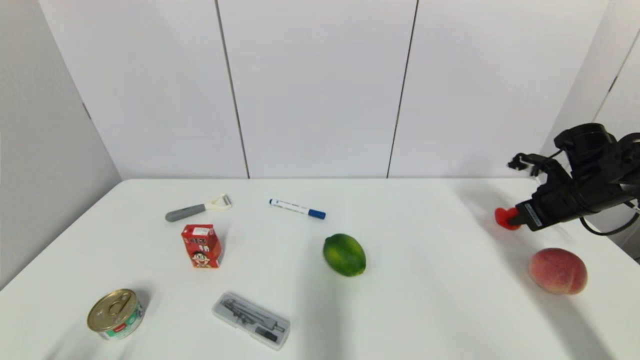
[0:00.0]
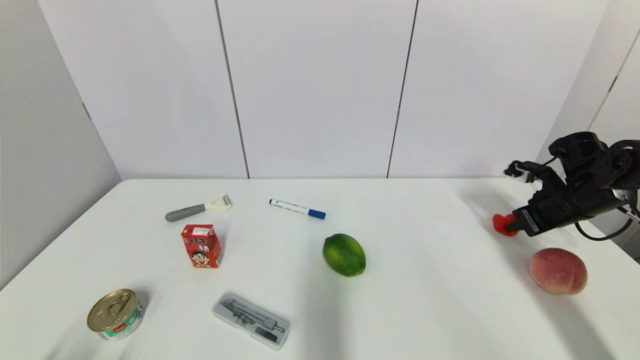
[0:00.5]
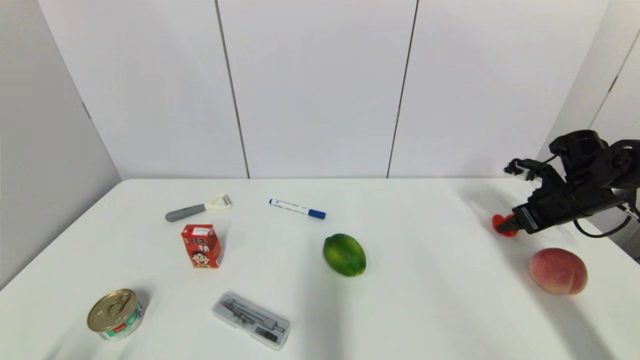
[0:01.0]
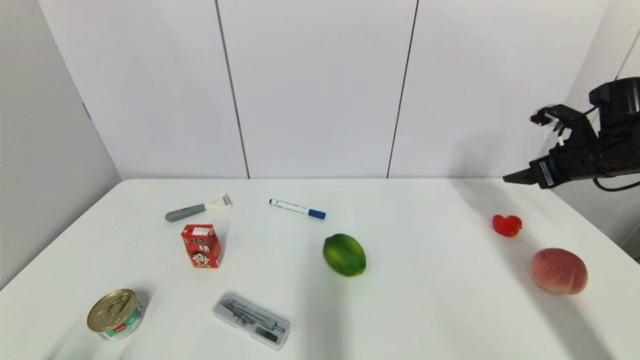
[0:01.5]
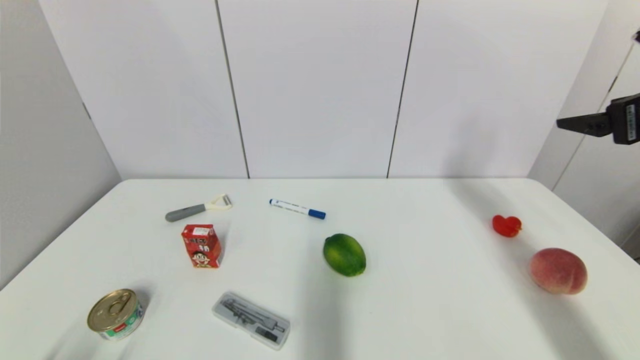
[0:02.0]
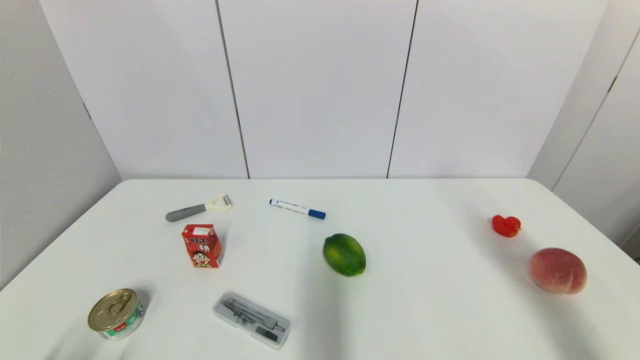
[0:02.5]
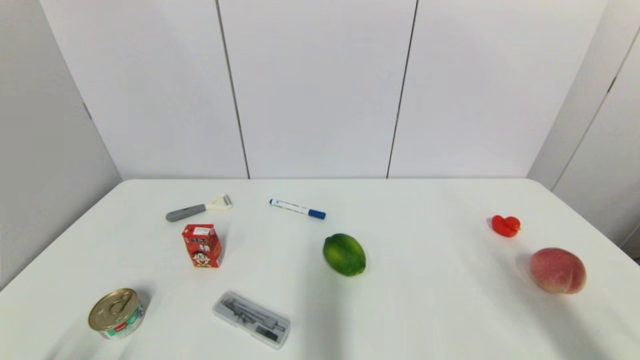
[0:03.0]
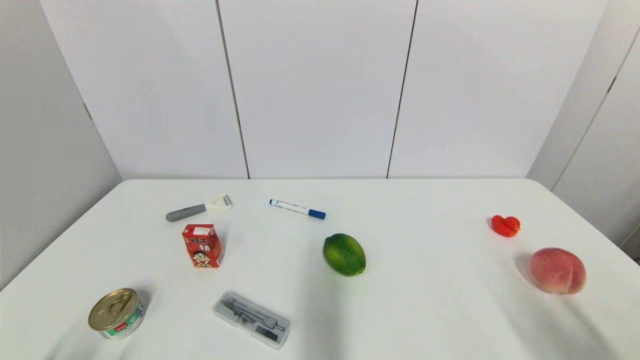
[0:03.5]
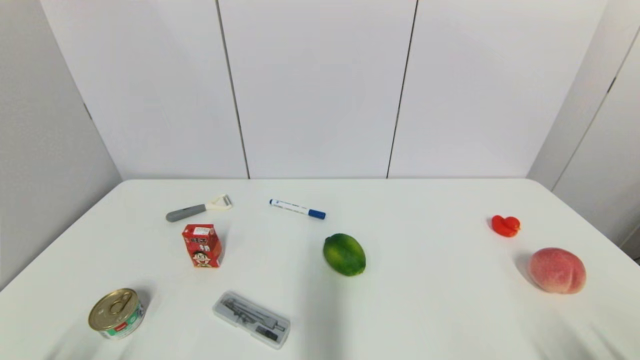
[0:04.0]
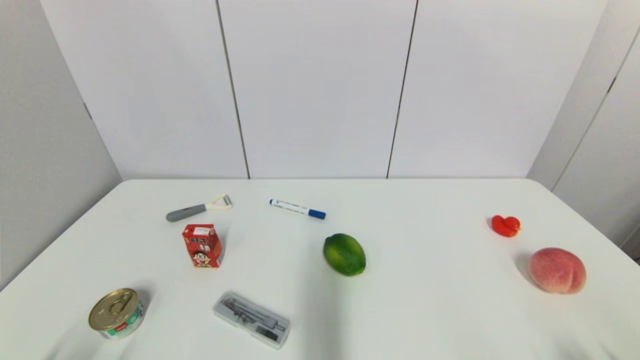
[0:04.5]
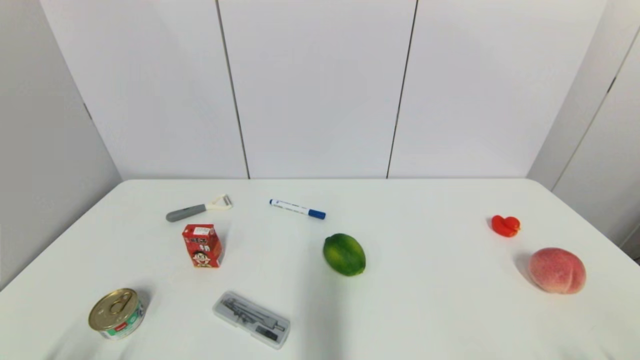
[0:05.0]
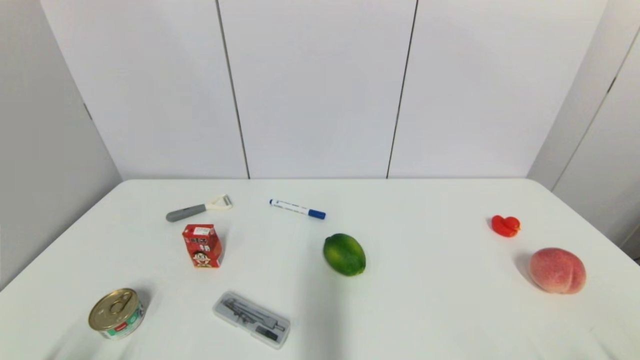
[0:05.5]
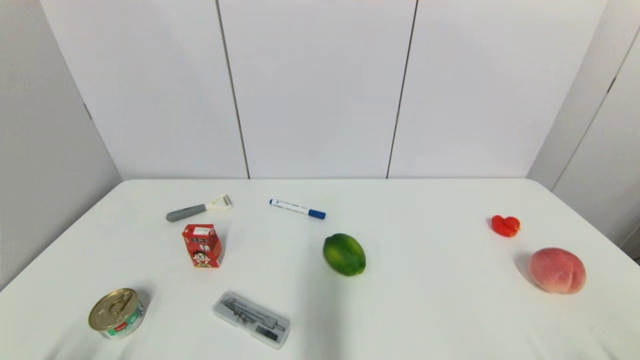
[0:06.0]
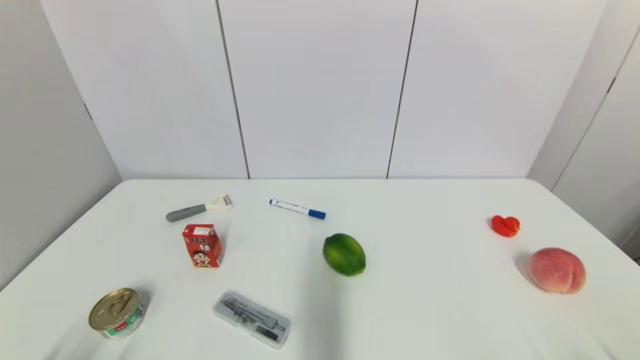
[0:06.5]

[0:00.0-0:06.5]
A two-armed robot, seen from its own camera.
0:00.0 to 0:02.0: The right gripper is displaced upward and backward by approximately 20 cm, and opens.
0:02.0 to 0:04.5: The right gripper shifts about 35 cm backward and downward.

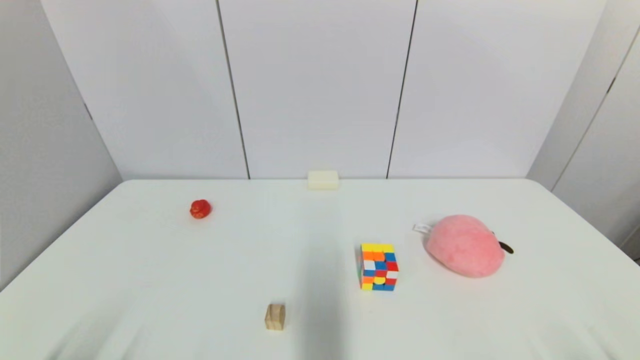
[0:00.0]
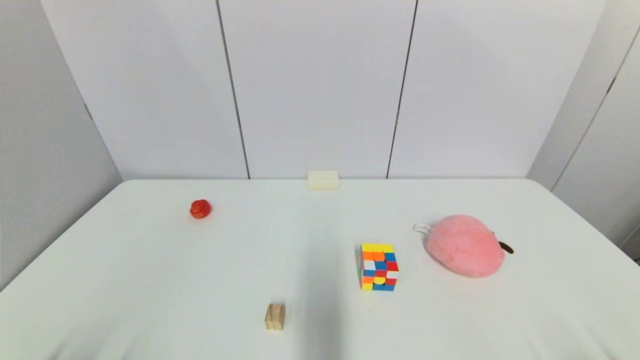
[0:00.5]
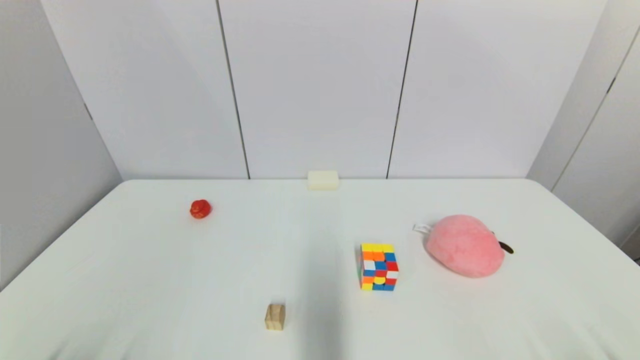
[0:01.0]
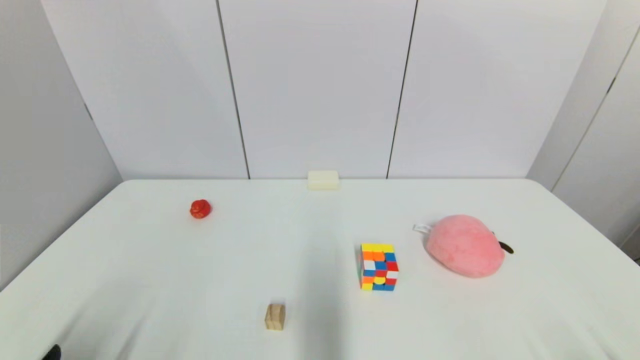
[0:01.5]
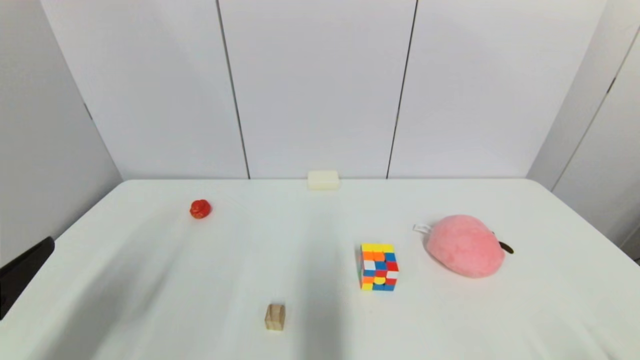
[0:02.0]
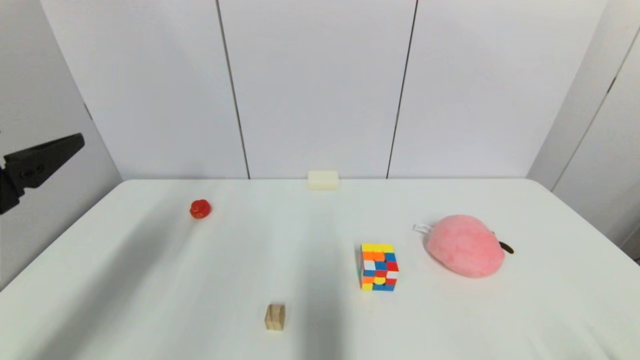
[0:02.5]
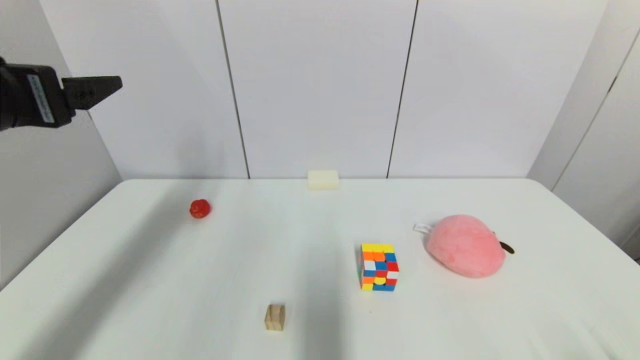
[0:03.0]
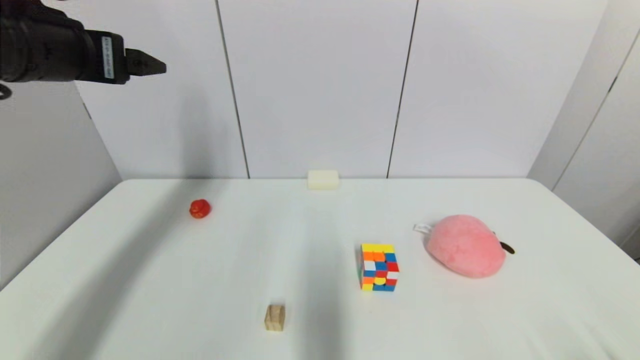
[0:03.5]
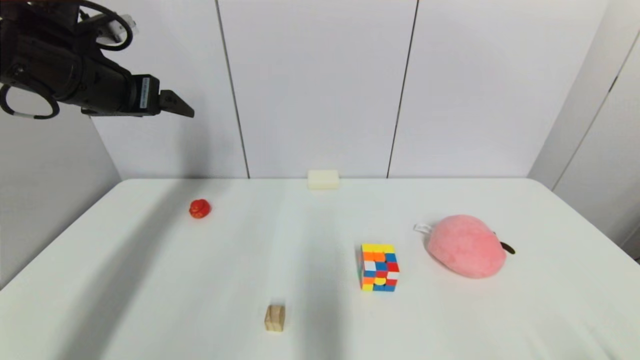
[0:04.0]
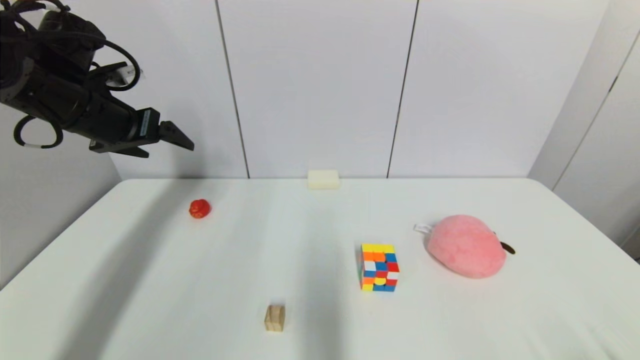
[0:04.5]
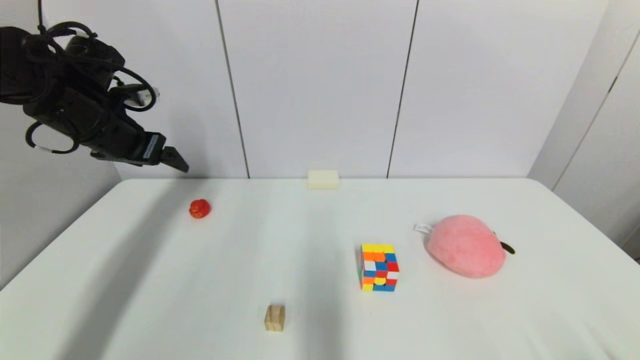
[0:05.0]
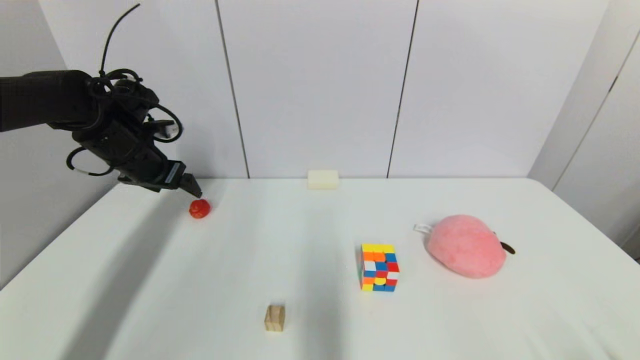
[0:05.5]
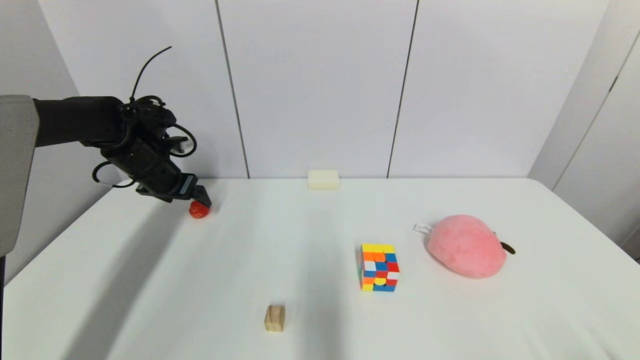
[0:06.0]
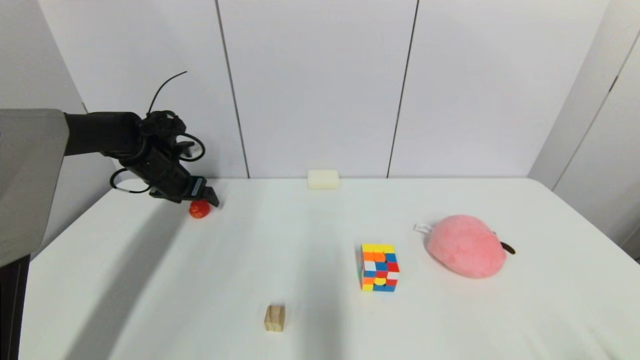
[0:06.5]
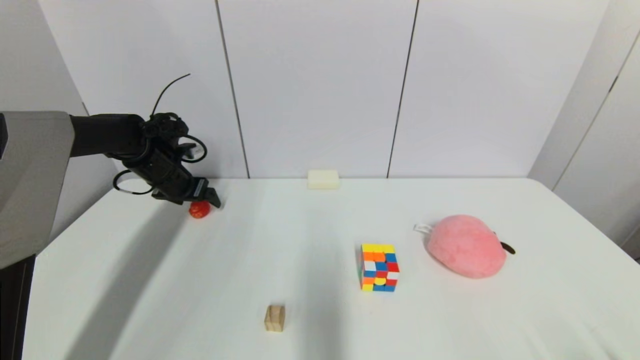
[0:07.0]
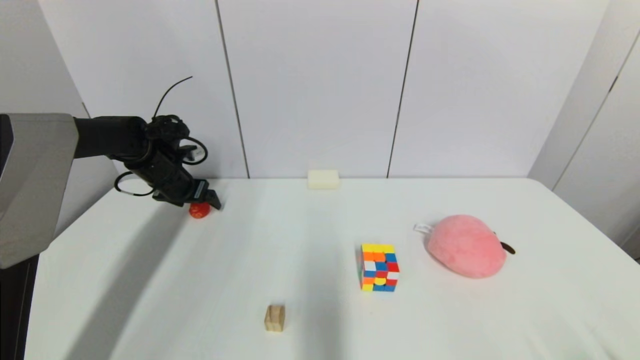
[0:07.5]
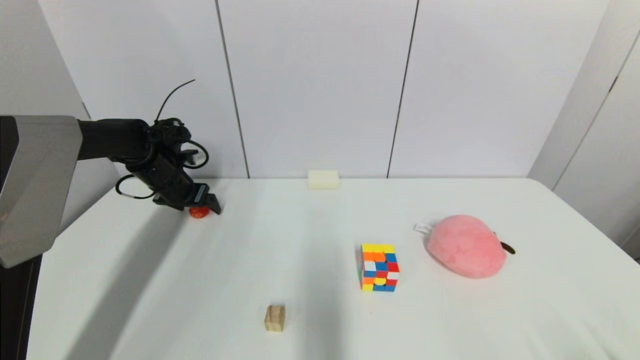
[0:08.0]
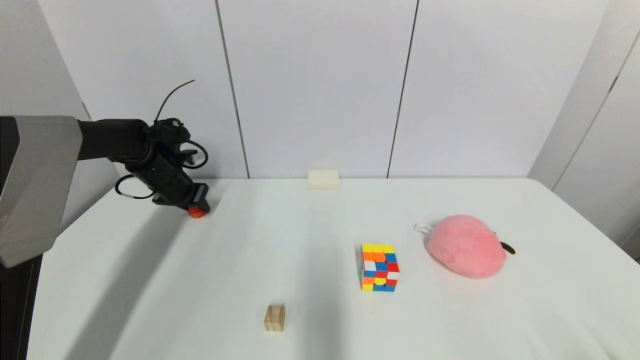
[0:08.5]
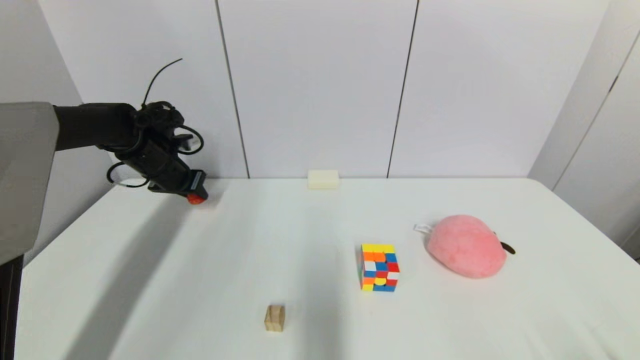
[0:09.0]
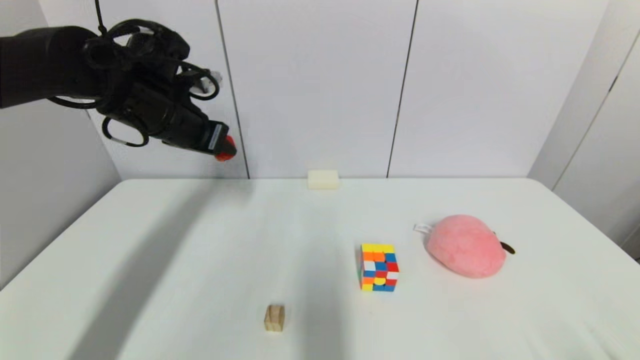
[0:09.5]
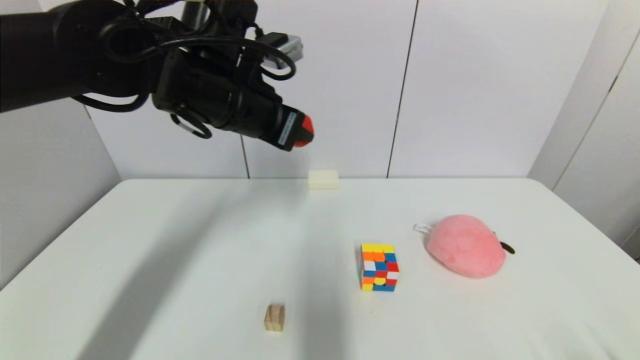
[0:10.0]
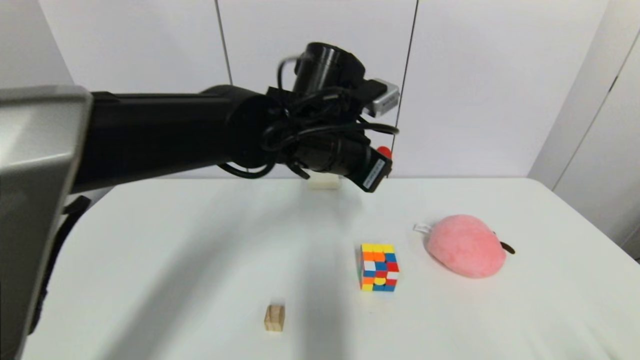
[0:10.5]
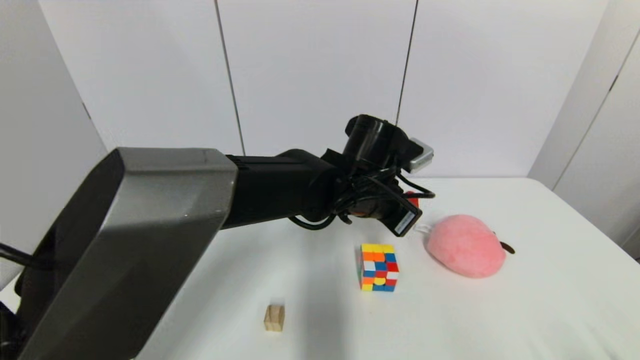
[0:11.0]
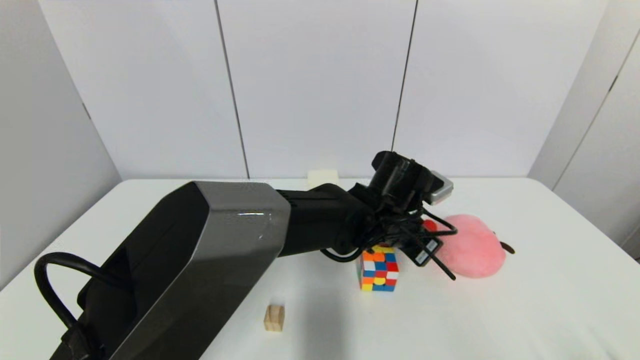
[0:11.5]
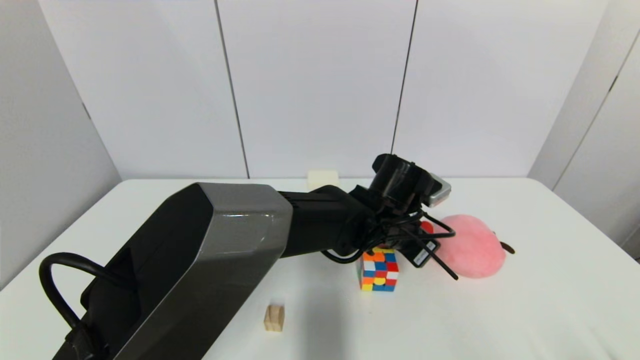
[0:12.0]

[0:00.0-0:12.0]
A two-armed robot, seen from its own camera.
Step, 0:01.5 to 0:08.5: Grasp the red duck with left gripper.
0:00.0 to 0:02.0: The left gripper moves upward and forward, some 15 cm.
0:02.0 to 0:04.0: The left gripper heads forward and upward, covering approximately 30 cm.
0:04.0 to 0:06.0: The left gripper shifts roughly 20 cm downward and forward.
0:06.0 to 0:08.0: The left gripper moves roughly 5 cm.
0:08.0 to 0:10.0: The left gripper shifts approximately 30 cm to the right, upward and backward, and closes.
0:10.0 to 0:12.0: The left gripper shifts roughly 25 cm to the right and downward.

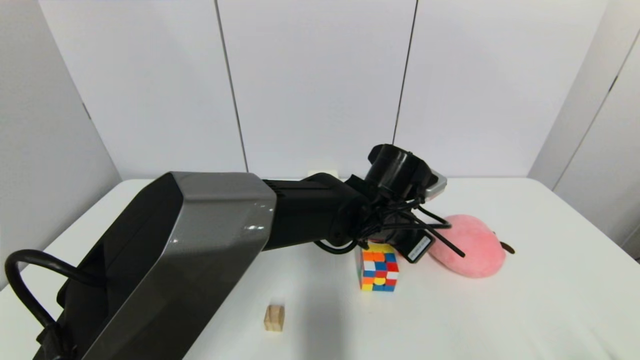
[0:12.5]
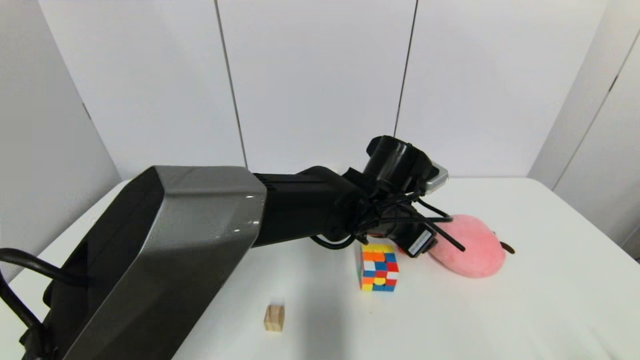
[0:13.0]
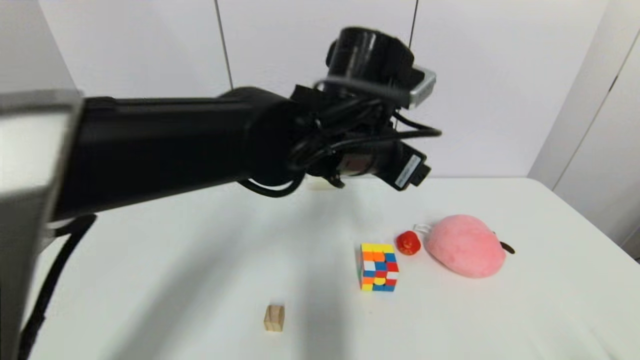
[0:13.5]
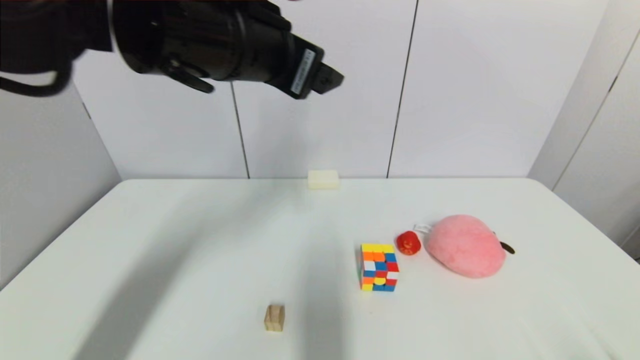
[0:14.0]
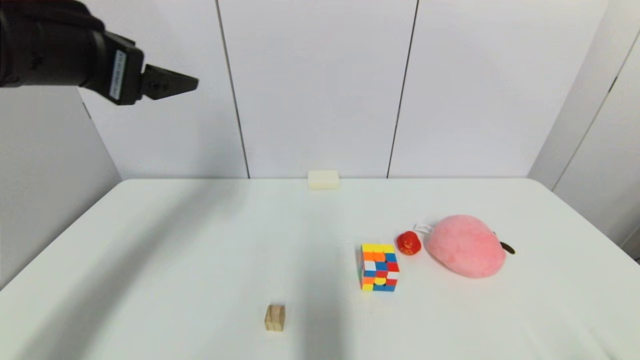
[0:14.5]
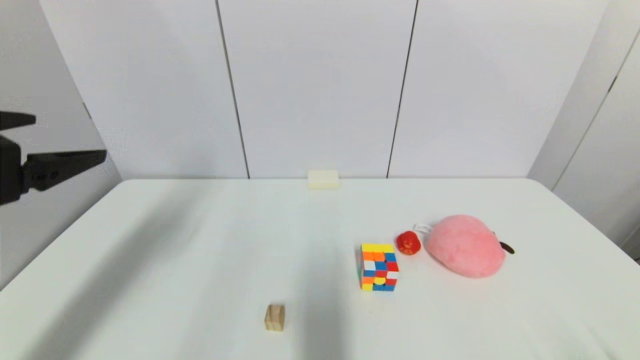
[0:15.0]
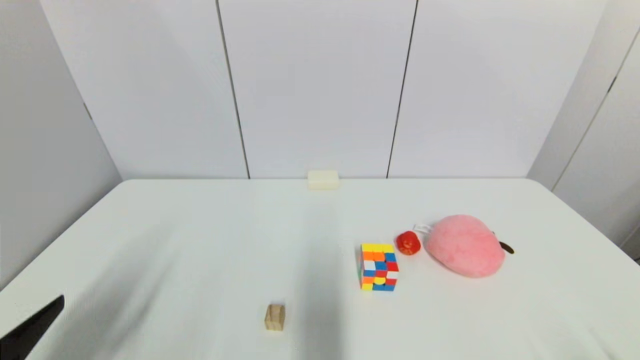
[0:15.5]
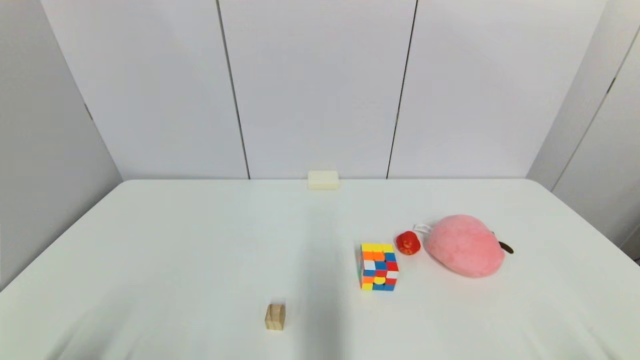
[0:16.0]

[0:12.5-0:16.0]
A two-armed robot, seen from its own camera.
0:12.5 to 0:14.5: The left gripper moves to the left and upward, some 40 cm, and opens up.
0:14.5 to 0:16.0: The left gripper heads downward and backward, covering about 35 cm.
